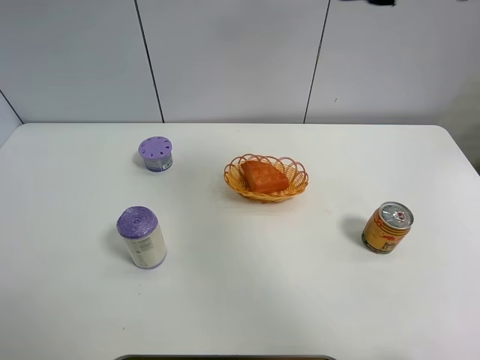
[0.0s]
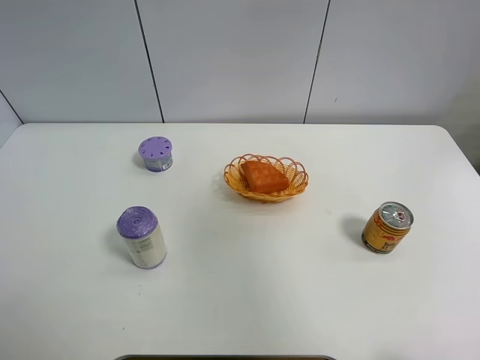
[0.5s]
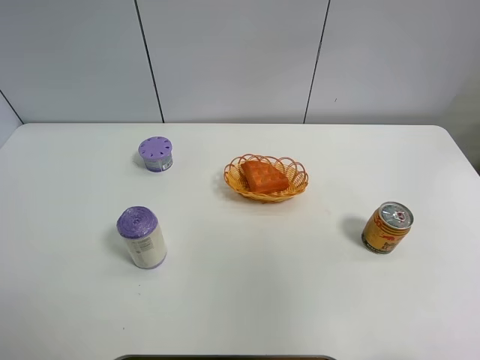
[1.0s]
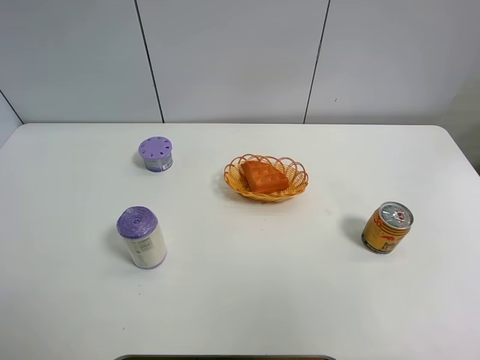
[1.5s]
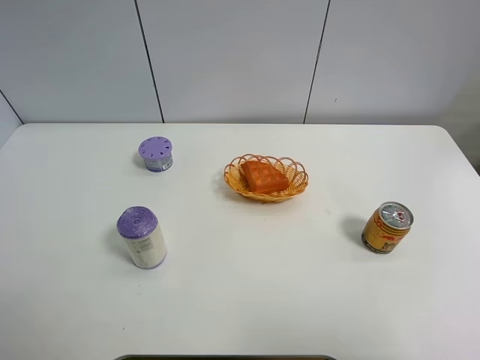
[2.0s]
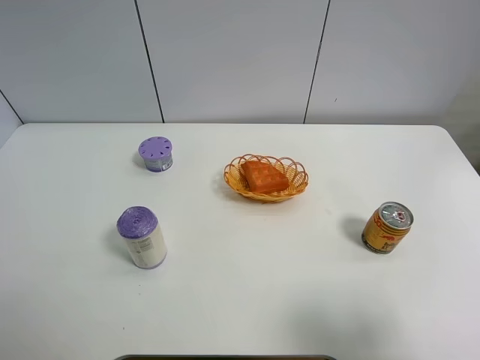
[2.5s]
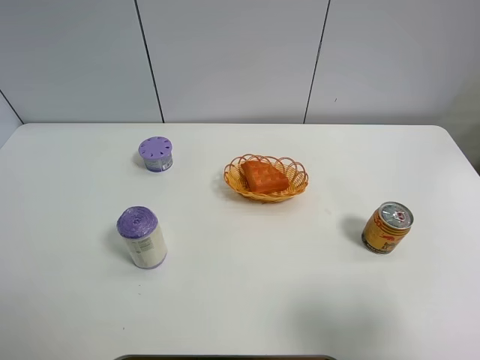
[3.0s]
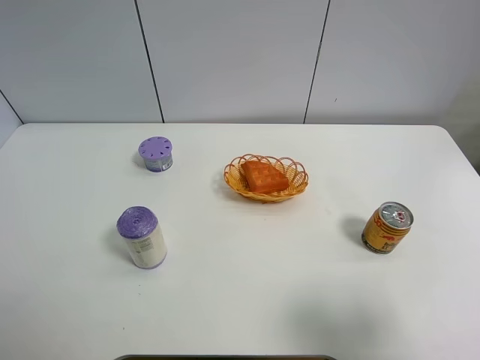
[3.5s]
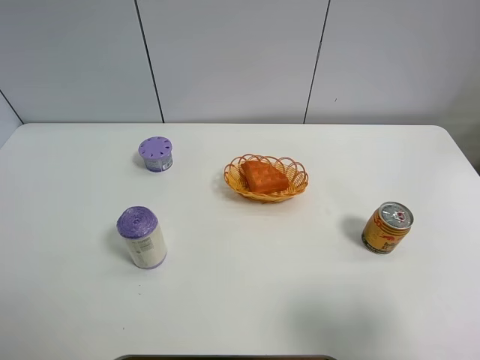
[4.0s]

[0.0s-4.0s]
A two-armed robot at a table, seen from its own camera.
Task of the whole recording: Put the bakery in the basket.
0.0s to 2.0s: The right gripper shifts approximately 30 cm backward.
2.0s to 4.0s: The right gripper moves downward and forward, some 15 cm.
